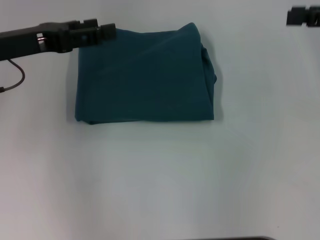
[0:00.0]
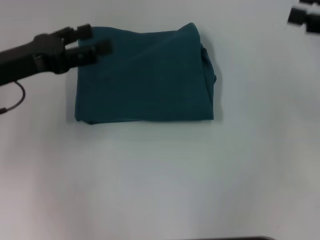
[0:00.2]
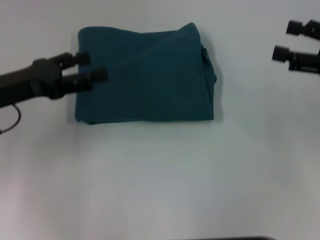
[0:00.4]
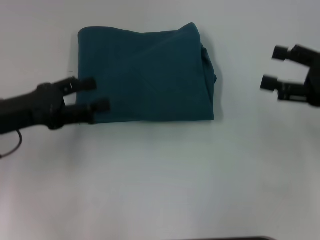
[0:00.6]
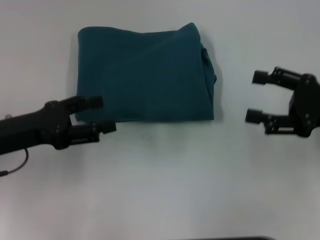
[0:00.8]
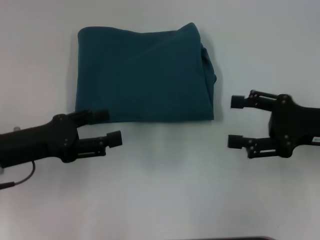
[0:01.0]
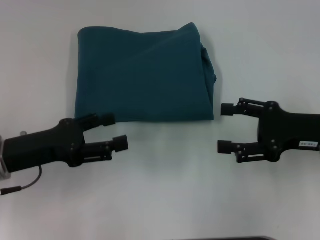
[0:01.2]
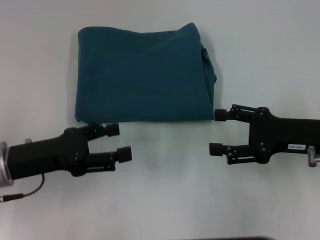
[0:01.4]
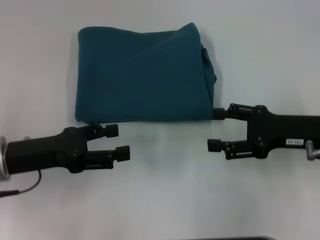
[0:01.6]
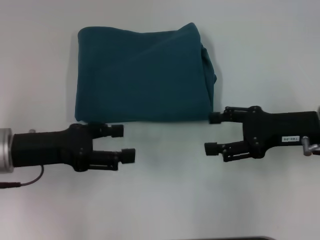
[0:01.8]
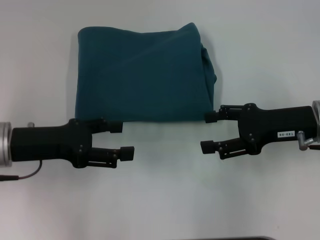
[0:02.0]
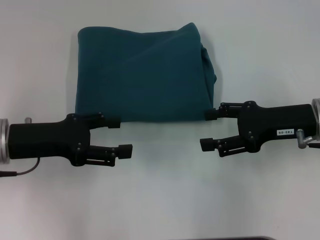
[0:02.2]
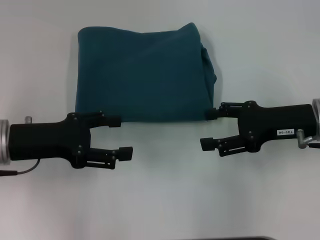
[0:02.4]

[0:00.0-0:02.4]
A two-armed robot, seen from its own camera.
0:00.0 to 0:01.2: The left gripper travels downward and backward by approximately 15 cm. The right gripper heads downward, backward and to the left, covering some 15 cm.
0:01.2 to 0:02.4: The grippers stay close to where they were, moving slightly.

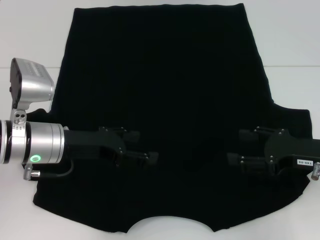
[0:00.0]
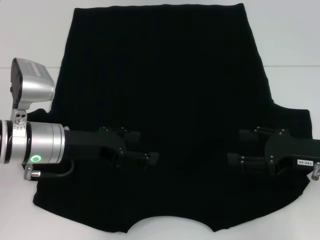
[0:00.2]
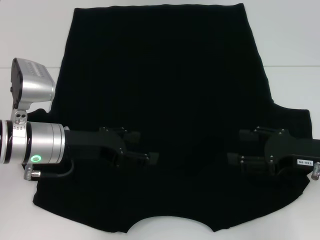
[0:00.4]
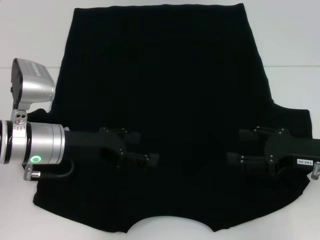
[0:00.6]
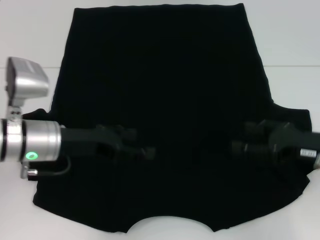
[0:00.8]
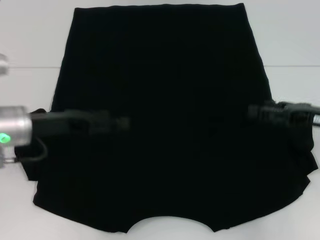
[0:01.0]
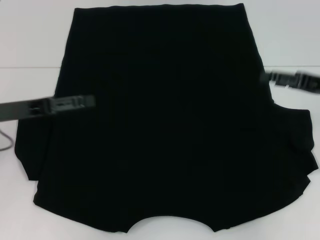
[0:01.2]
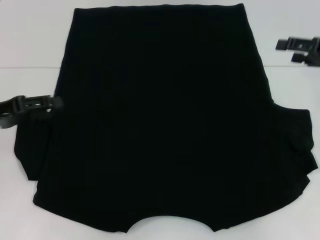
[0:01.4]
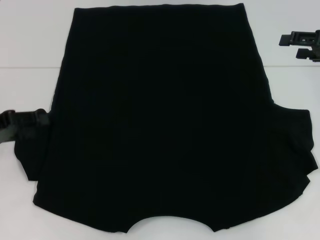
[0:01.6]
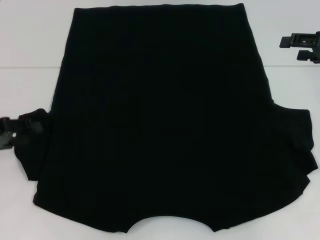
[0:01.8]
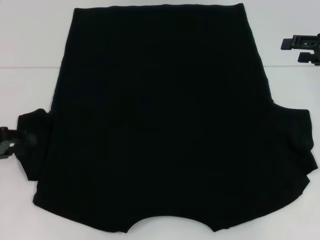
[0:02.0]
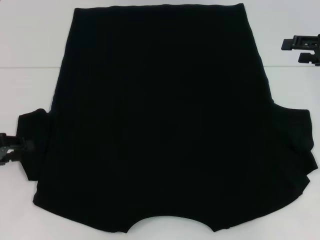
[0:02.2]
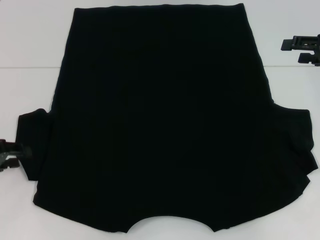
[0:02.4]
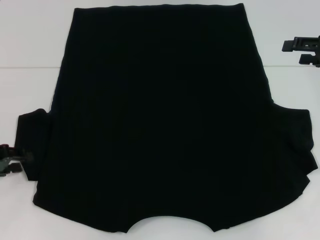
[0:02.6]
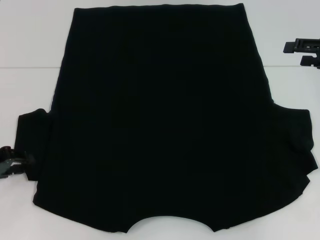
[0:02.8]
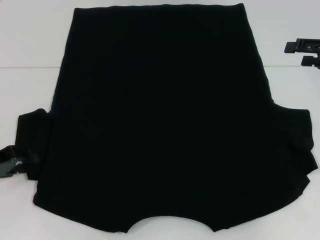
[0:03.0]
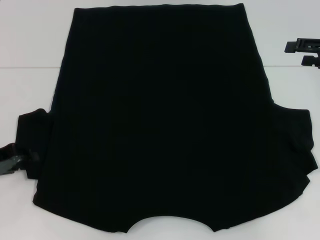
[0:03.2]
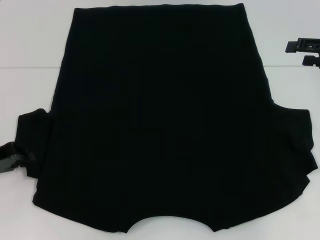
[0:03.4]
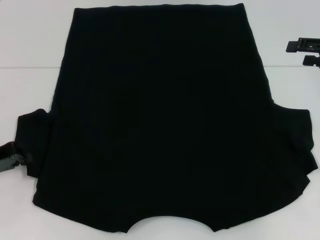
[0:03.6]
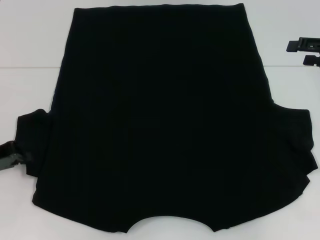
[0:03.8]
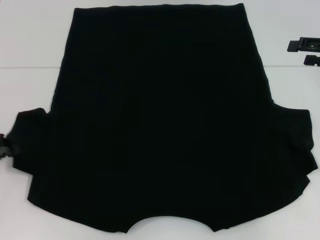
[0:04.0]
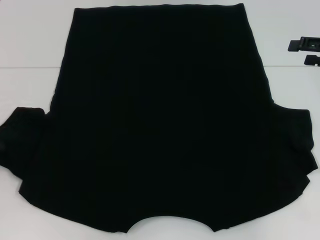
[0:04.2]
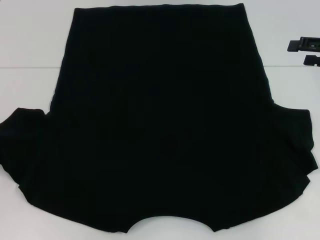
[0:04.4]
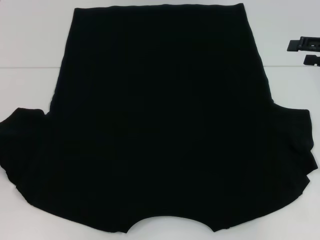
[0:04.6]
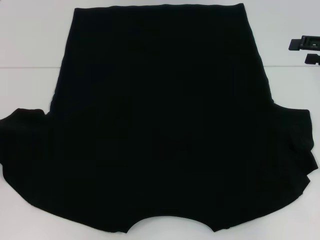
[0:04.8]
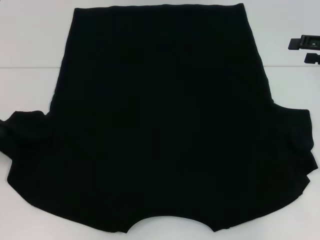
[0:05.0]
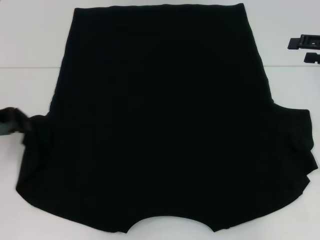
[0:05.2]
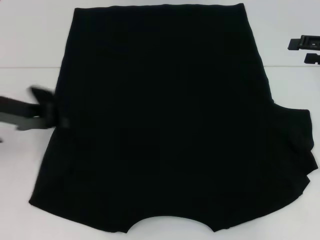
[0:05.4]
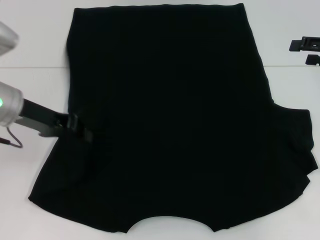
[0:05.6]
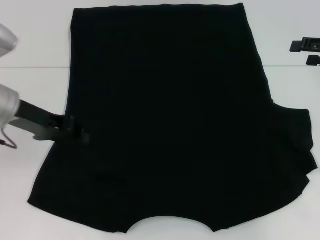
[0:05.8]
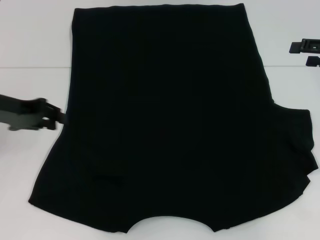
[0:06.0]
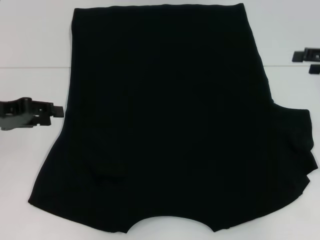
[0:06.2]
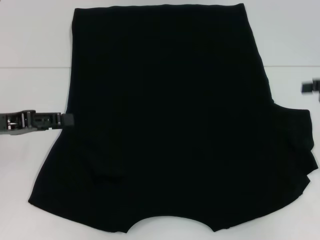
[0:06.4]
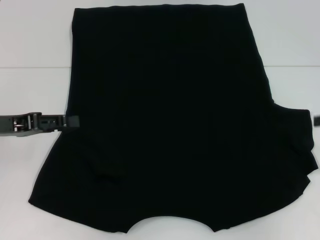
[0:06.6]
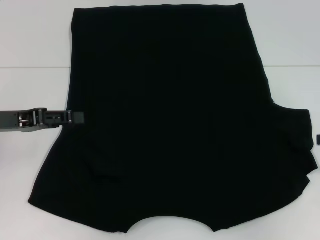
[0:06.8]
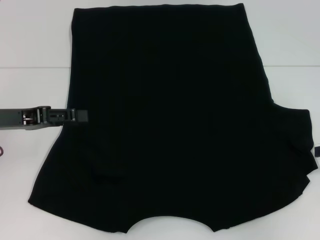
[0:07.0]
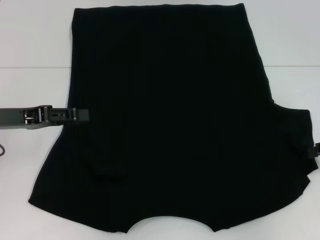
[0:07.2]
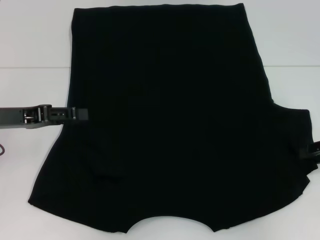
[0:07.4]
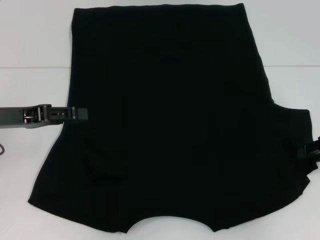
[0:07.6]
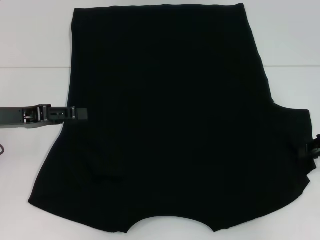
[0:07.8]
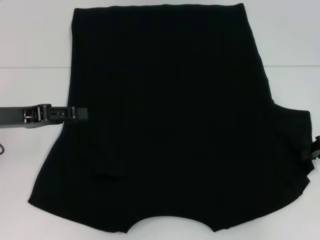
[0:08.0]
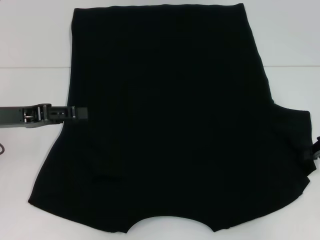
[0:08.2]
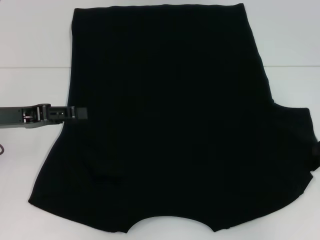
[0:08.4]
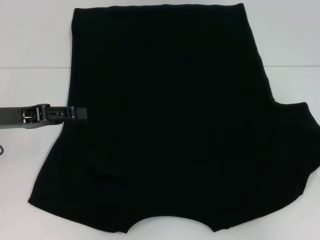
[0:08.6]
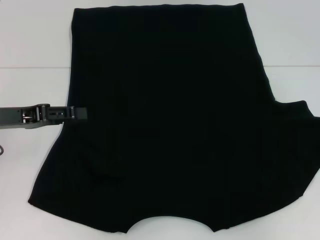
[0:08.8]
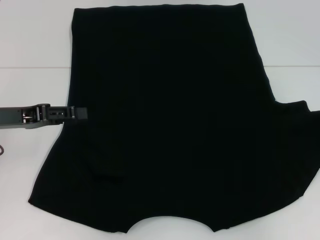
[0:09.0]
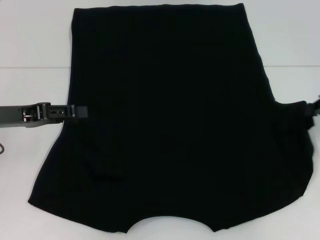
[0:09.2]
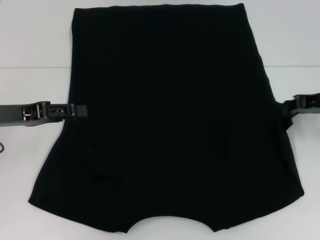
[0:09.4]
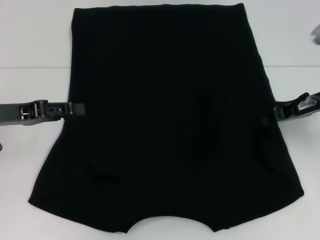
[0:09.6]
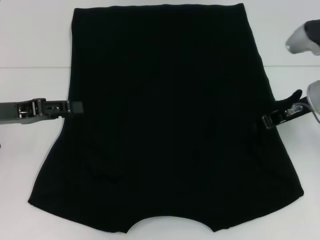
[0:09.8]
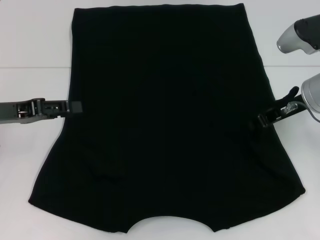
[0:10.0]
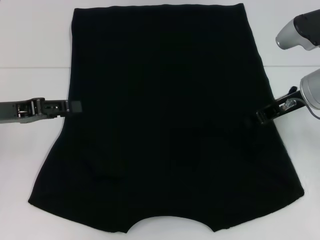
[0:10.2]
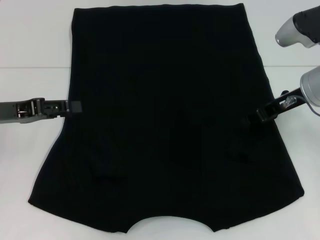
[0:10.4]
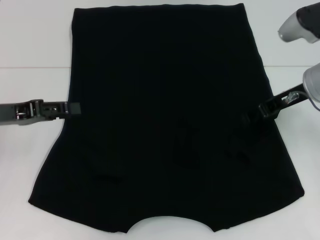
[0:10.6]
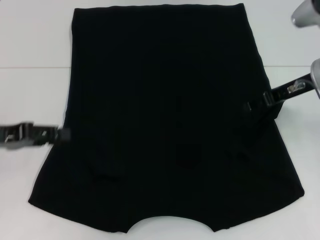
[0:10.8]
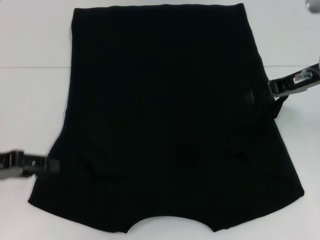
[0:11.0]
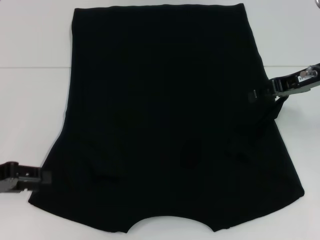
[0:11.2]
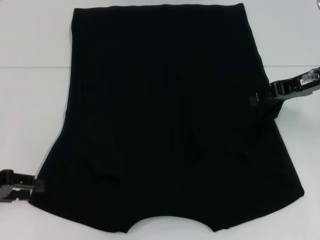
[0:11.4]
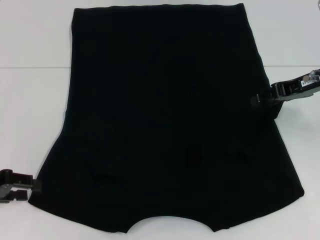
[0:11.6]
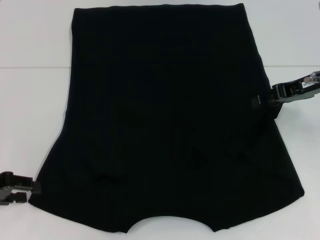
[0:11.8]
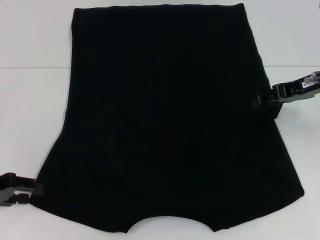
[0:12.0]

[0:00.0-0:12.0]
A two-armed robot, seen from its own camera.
Step, 0:00.0 to 0:05.8: Fold the bottom left sleeve with your left hand.
Step, 0:06.0 to 0:10.4: Fold the bottom right sleeve with your right hand.
0:00.0 to 0:01.6: The right gripper shifts approximately 15 cm forward, upward and to the right, while the left gripper shifts roughly 15 cm to the left.
0:01.6 to 0:03.0: The left gripper is displaced downward by some 5 cm.
0:03.0 to 0:04.4: The left gripper closes.
0:04.4 to 0:06.0: The left gripper heads to the right and upward, covering approximately 10 cm.
0:06.0 to 0:07.6: The right gripper heads downward, covering some 10 cm, and closes up.
0:07.6 to 0:09.0: The right gripper closes its fingers.
0:09.0 to 0:10.4: The right gripper heads to the left, covering some 15 cm.
0:10.4 to 0:12.0: The right gripper opens up; the left gripper moves downward and backward, some 10 cm.

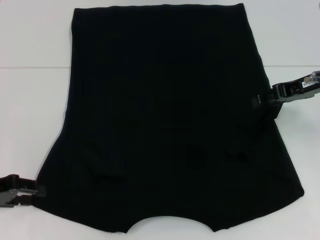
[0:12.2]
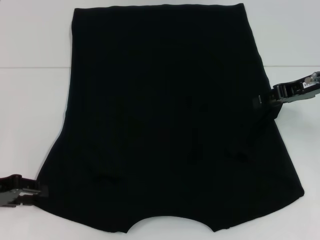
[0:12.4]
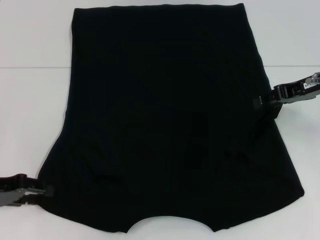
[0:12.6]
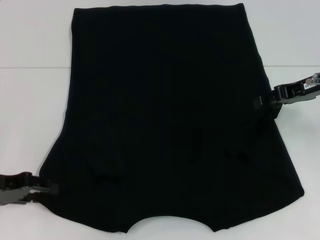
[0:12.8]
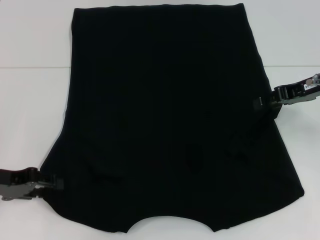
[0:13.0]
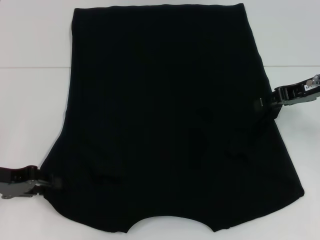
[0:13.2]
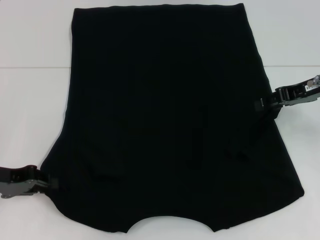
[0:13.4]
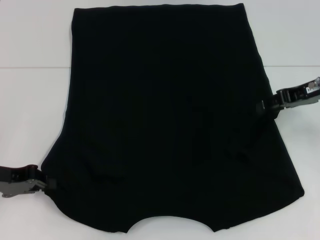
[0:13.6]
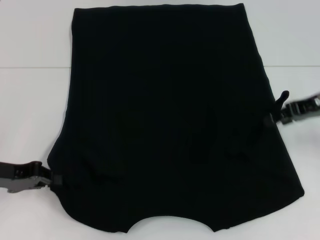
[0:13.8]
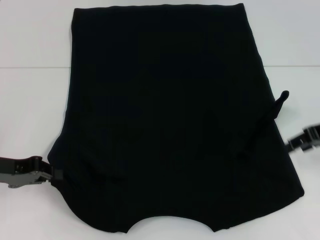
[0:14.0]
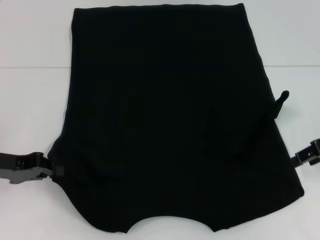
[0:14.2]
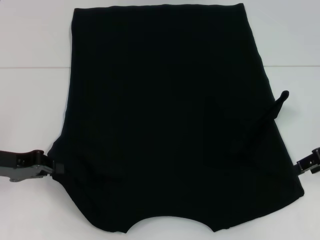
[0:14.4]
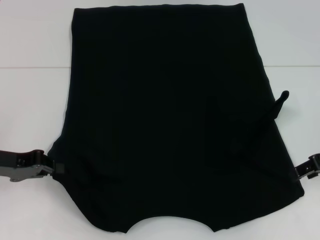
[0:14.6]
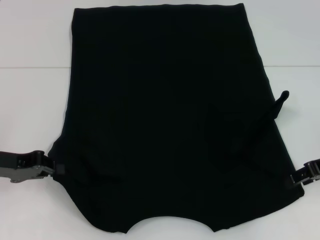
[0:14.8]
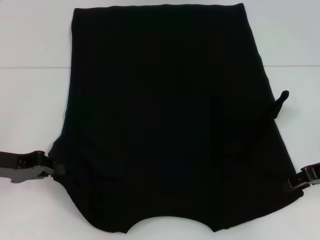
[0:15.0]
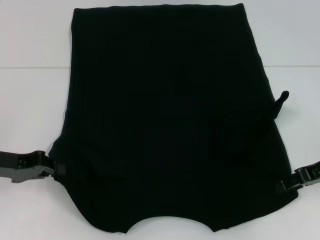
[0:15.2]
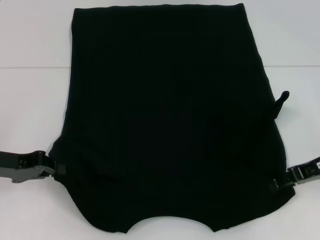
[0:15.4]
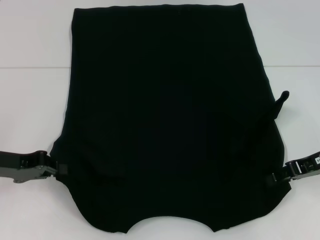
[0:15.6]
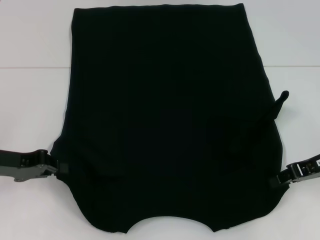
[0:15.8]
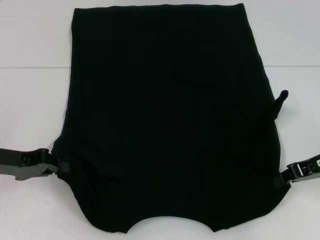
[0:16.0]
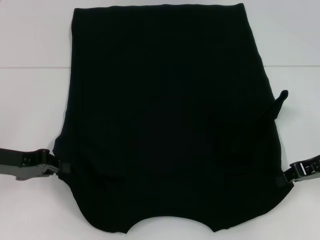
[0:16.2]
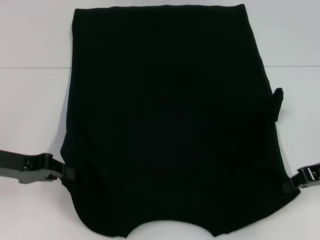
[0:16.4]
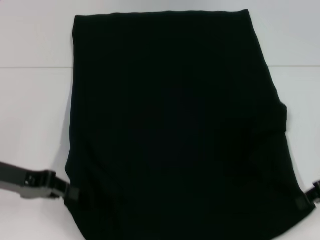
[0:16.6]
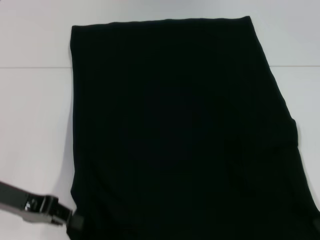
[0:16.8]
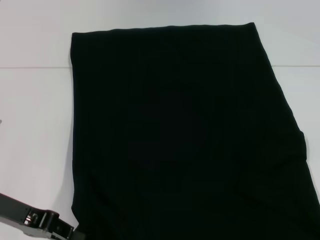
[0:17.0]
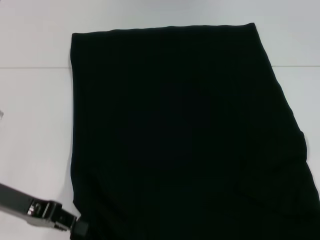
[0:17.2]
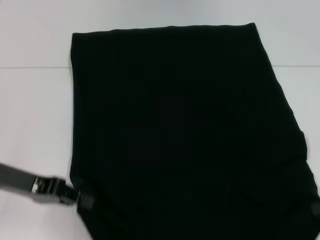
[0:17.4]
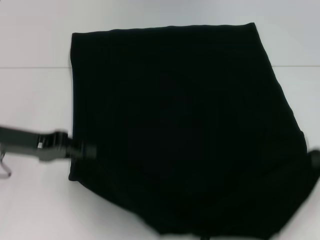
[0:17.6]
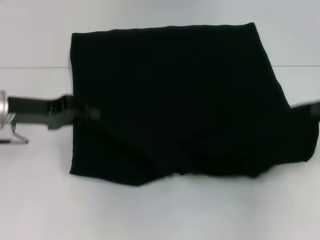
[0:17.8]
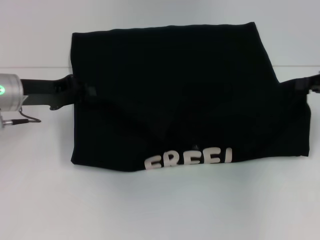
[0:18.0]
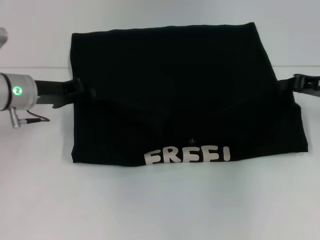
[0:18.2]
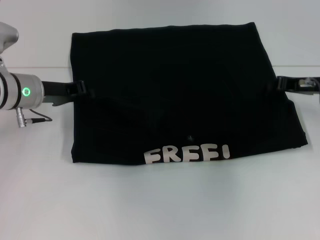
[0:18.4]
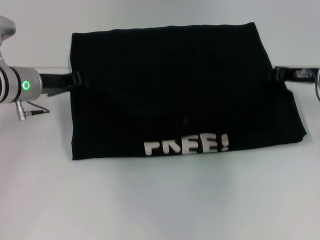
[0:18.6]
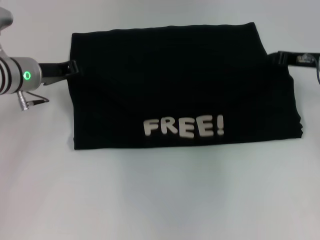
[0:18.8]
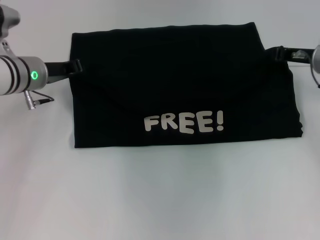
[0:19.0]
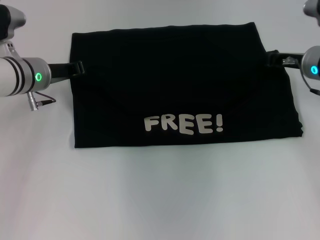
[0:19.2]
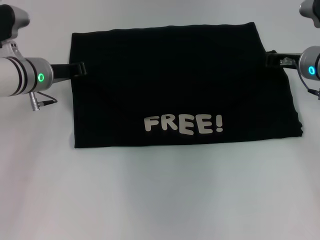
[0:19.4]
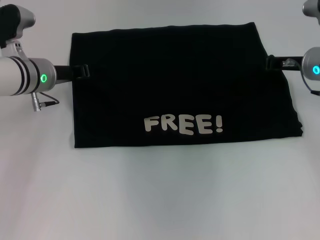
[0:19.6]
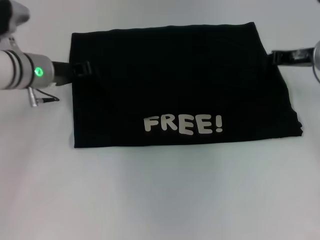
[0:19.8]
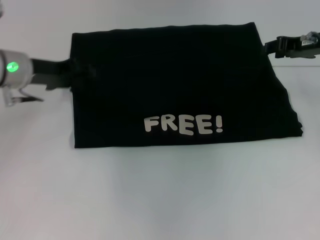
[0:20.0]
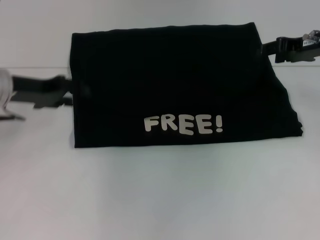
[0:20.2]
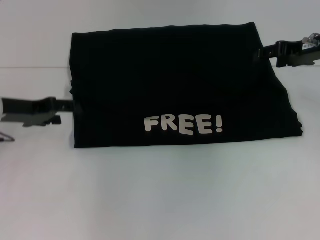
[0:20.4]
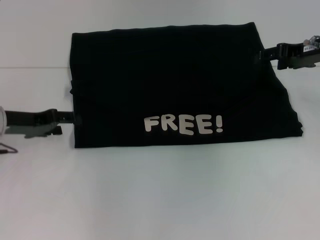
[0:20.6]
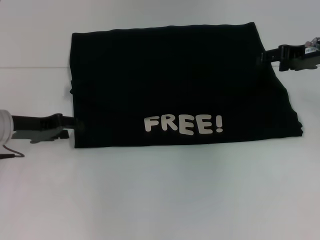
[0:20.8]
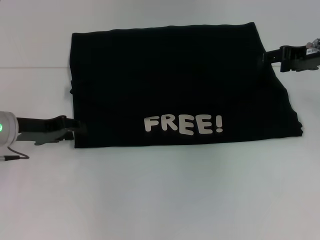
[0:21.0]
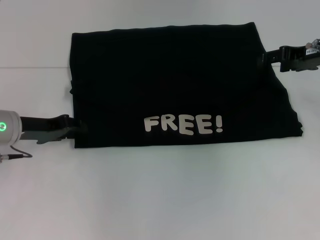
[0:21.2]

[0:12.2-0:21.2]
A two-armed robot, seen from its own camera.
Step, 0:12.2 to 0:13.8: Grab the bottom left corner with your left hand.
Step, 0:14.0 to 0:16.2: Grab the bottom right corner with your right hand.
Step, 0:16.4 to 0:19.8: Fold the clothes with your left hand.
Step, 0:16.4 to 0:19.8: Fold the clothes with your right hand.
0:12.2 to 0:13.8: The left gripper closes up.
0:13.8 to 0:15.2: The right gripper heads downward, covering about 5 cm.
0:15.2 to 0:16.6: The right gripper closes.
0:16.6 to 0:18.2: The two grippers go approximately 10 cm forward.
0:18.2 to 0:19.8: The right gripper ends up some 5 cm from where it was.
0:19.8 to 0:21.2: The right gripper opens up, while the left gripper goes roughly 10 cm backward and to the left.
